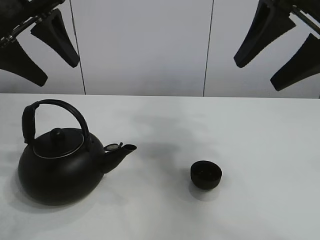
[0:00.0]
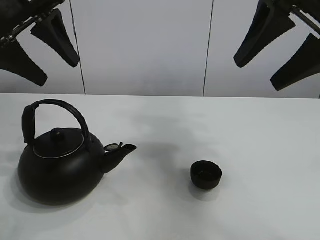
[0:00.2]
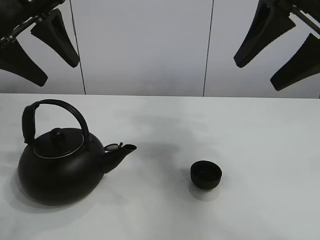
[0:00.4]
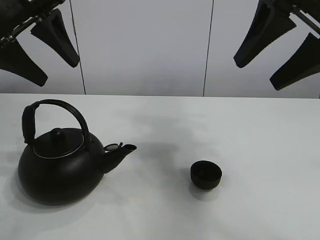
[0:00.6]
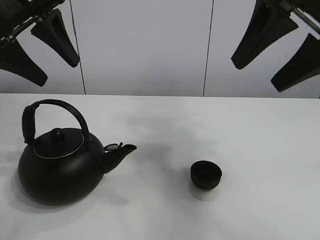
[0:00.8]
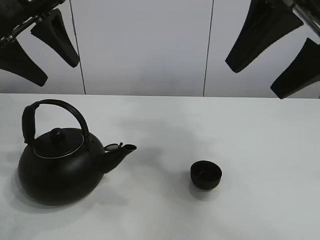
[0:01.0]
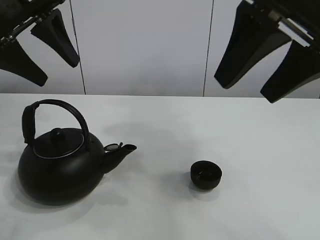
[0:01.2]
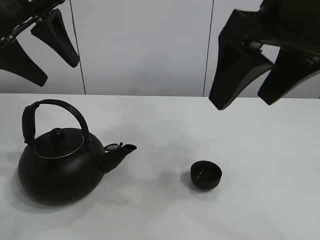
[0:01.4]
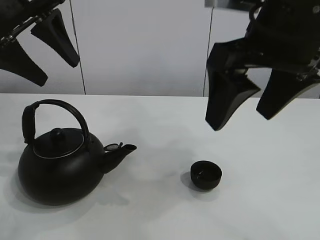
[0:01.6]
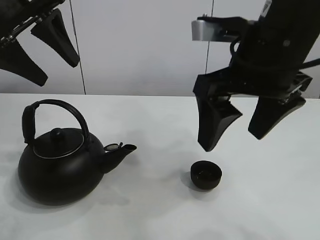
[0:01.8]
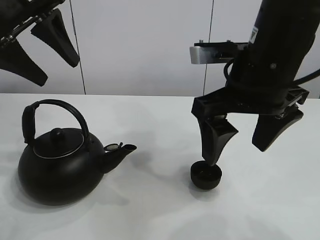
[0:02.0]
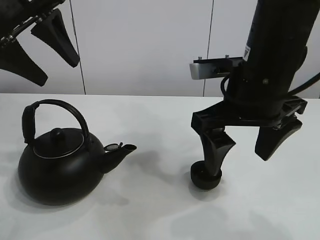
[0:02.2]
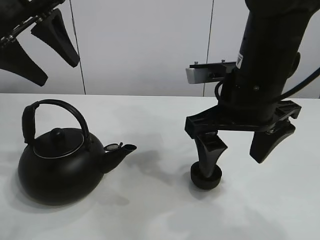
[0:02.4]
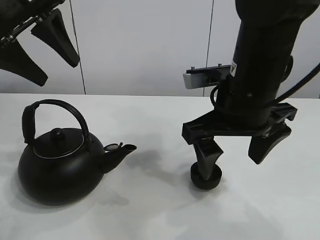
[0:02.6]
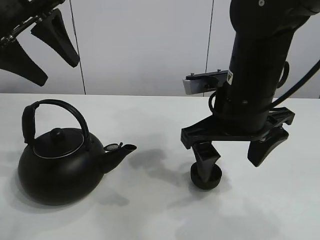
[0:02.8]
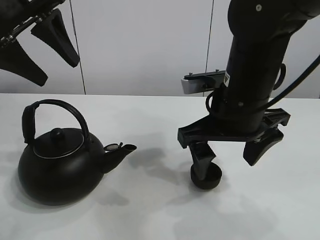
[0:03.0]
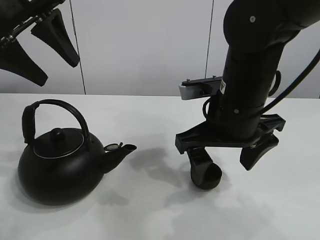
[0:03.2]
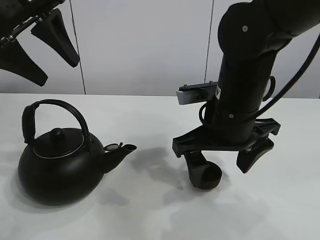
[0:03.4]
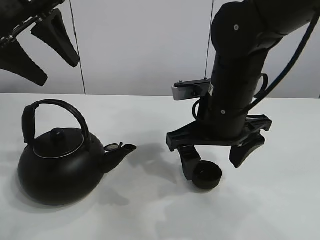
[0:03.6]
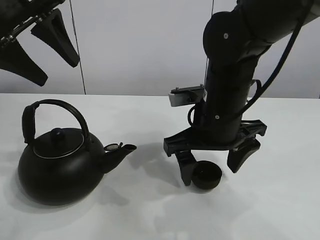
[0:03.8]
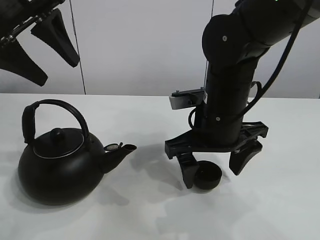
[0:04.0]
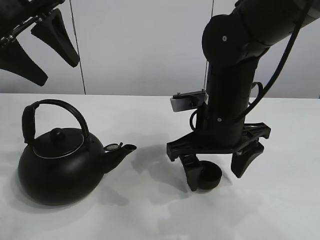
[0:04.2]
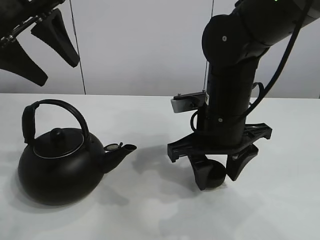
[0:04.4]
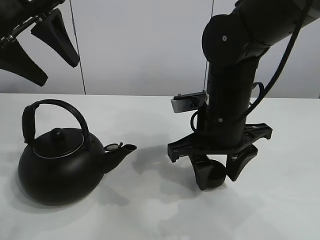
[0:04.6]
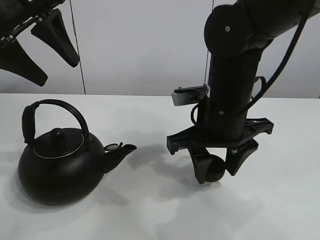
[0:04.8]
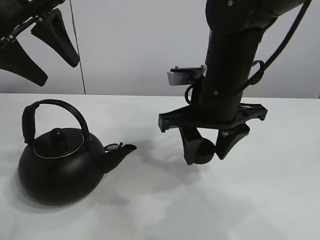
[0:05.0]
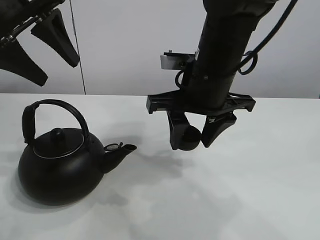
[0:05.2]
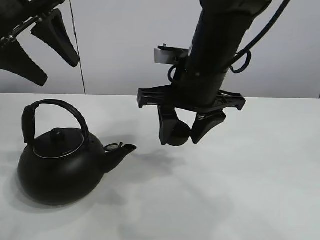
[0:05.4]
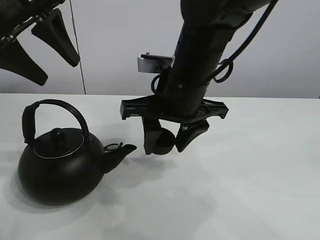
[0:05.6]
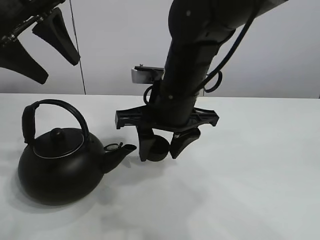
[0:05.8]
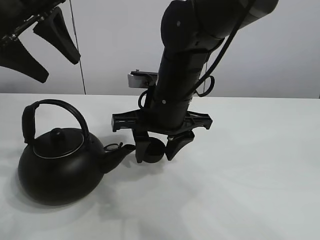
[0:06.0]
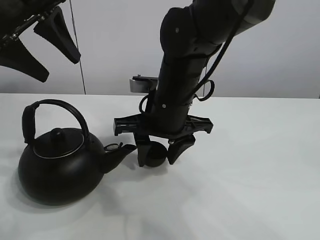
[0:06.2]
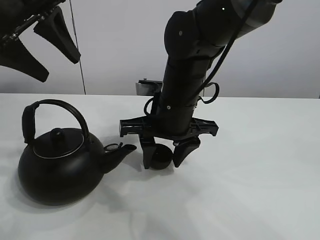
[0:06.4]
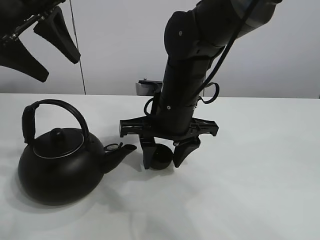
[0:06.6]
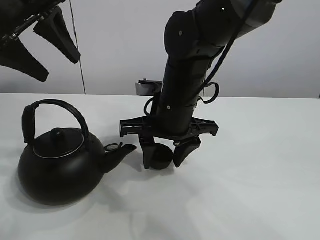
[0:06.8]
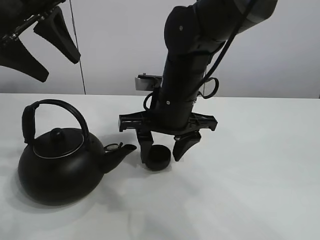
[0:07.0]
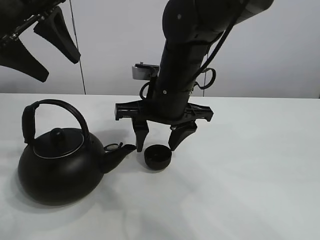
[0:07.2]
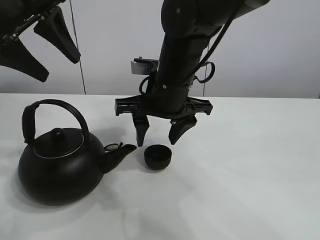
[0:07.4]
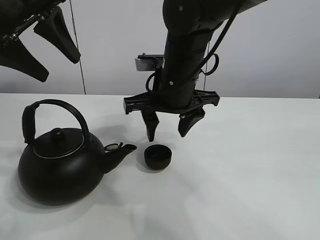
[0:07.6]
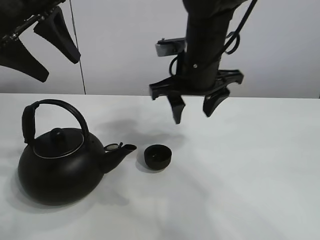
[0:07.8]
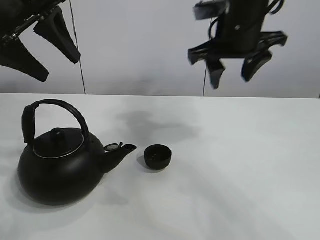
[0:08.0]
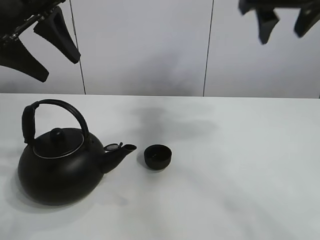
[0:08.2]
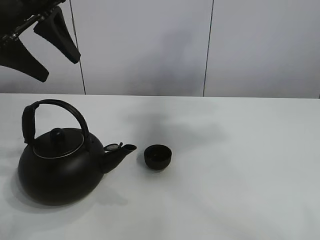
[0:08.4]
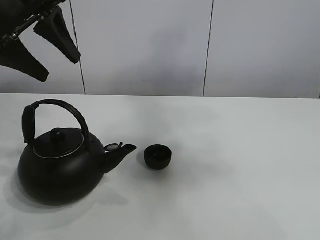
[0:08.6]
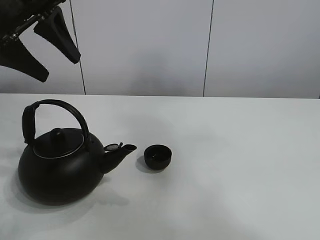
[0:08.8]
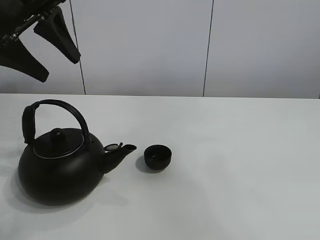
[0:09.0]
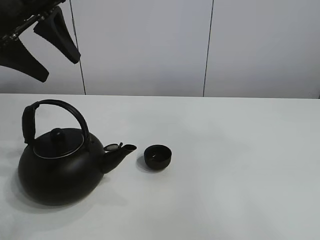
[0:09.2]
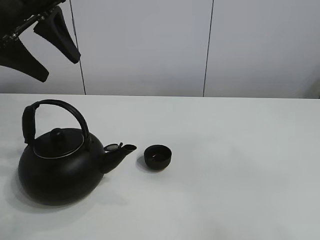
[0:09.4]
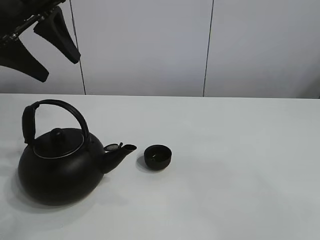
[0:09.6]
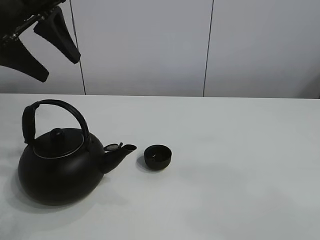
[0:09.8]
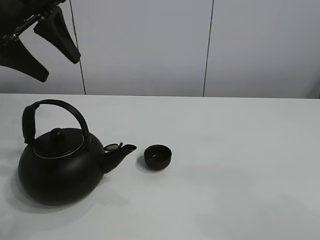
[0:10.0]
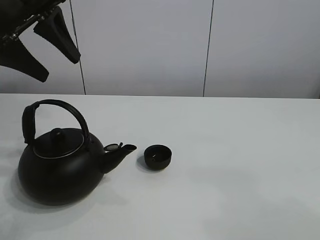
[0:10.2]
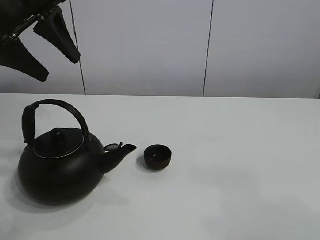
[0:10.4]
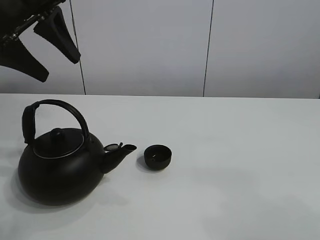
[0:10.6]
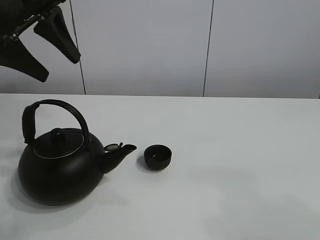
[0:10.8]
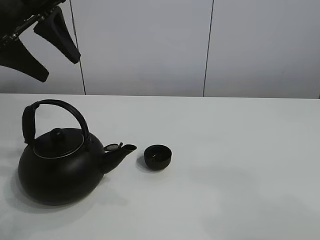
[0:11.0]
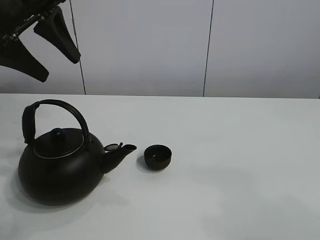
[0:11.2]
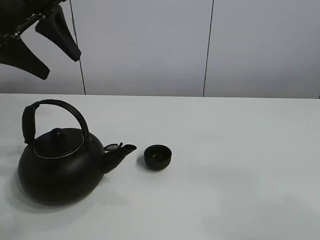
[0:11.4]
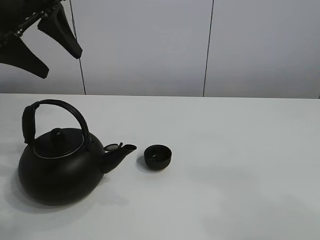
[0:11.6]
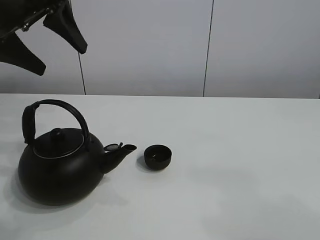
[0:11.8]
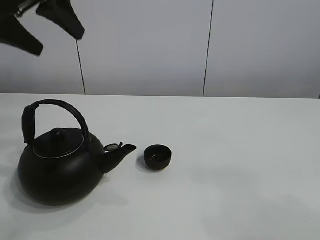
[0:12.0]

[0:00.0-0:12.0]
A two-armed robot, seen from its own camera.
Task of the whole recording: pour tea into the teacup.
Step, 0:00.0 to 0:04.6: Pick up the teacup with the right gripper.
Step, 0:05.0 to 0:07.0: Place the teacup in the center of view with the right gripper.
0:01.6 to 0:03.0: The right gripper goes some 10 cm downward.
0:03.0 to 0:04.4: The right gripper closes up.
0:04.4 to 0:06.0: The right gripper is displaced to the left by roughly 5 cm.
0:06.0 to 0:07.6: The grippers move only a little.
0:07.6 to 0:09.0: The right gripper heads upward, backward and to the right, covering roughly 60 cm.
0:09.0 to 0:10.4: The right gripper goes about 25 cm downward.
0:10.4 to 0:12.0: There are only small adjustments of the grippers.

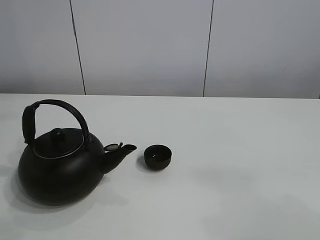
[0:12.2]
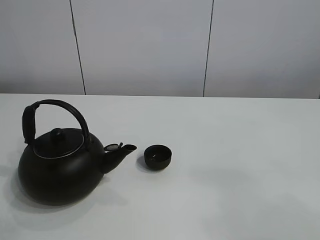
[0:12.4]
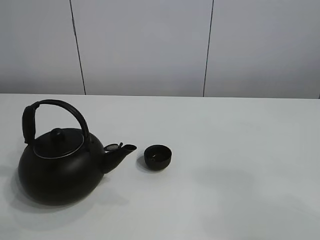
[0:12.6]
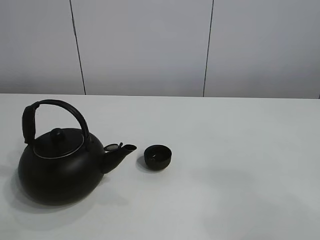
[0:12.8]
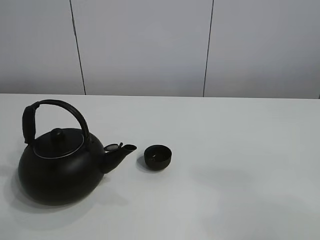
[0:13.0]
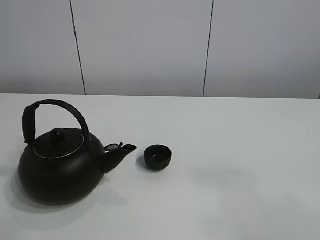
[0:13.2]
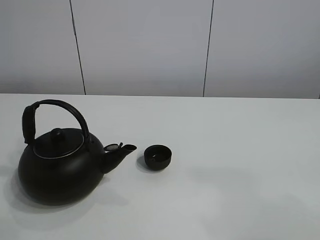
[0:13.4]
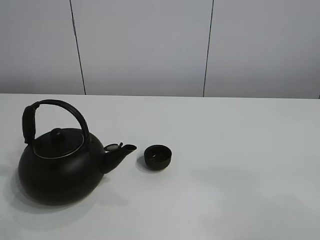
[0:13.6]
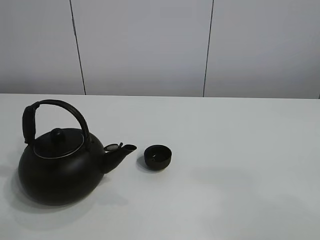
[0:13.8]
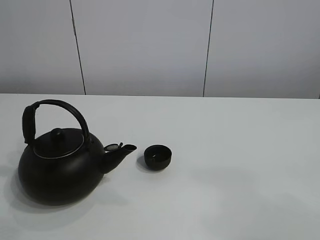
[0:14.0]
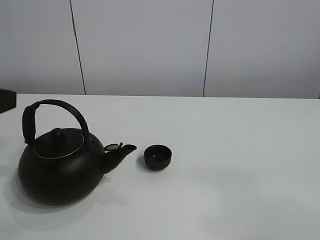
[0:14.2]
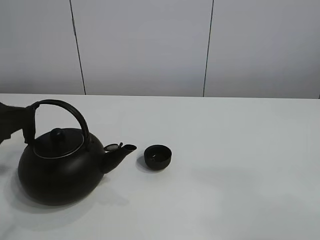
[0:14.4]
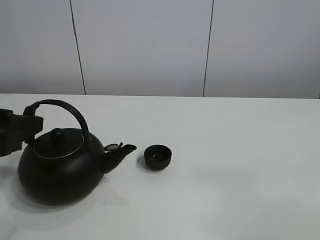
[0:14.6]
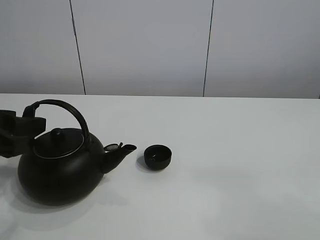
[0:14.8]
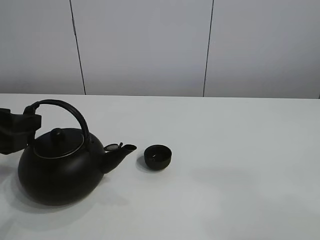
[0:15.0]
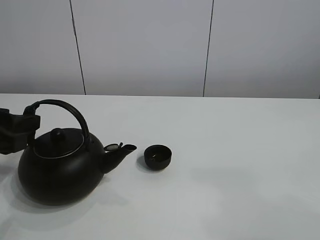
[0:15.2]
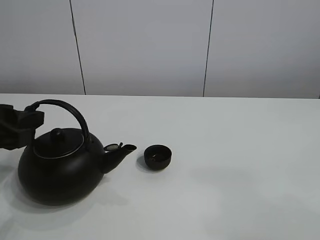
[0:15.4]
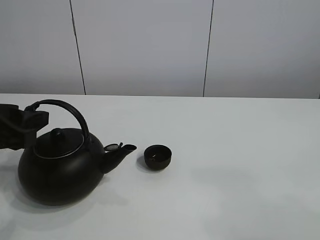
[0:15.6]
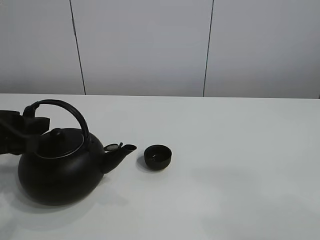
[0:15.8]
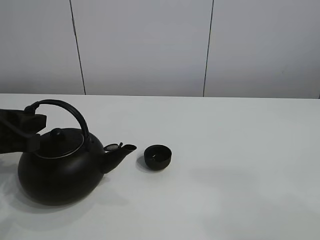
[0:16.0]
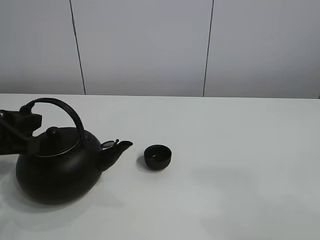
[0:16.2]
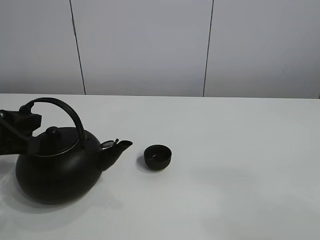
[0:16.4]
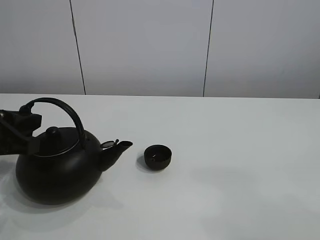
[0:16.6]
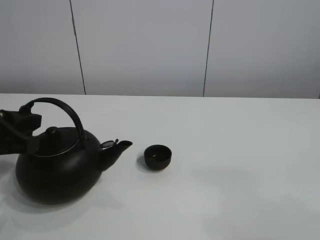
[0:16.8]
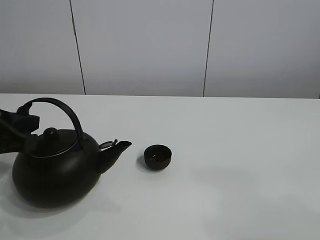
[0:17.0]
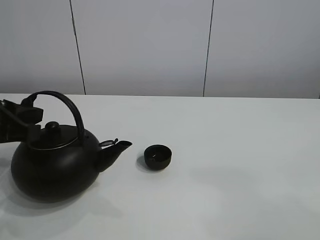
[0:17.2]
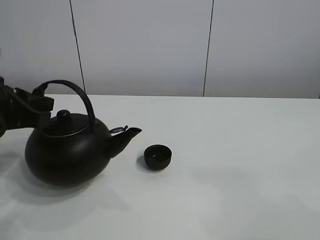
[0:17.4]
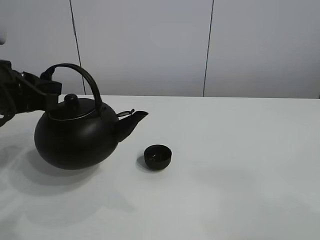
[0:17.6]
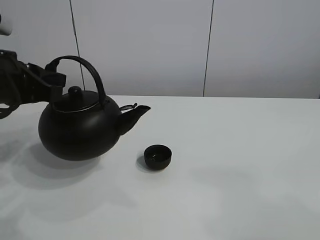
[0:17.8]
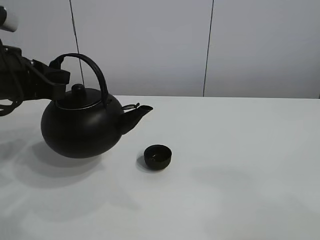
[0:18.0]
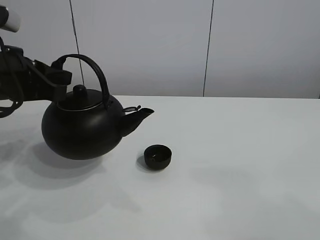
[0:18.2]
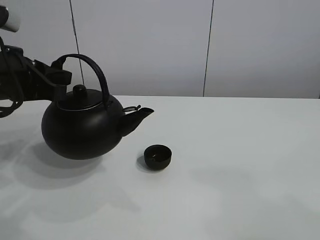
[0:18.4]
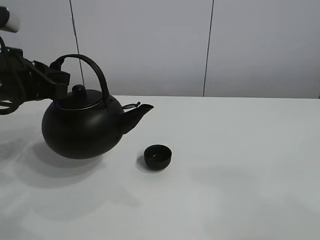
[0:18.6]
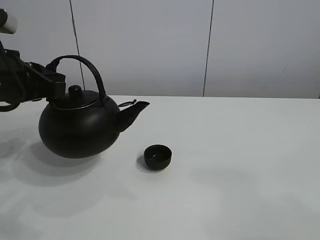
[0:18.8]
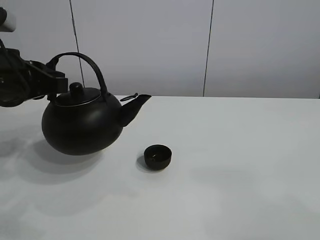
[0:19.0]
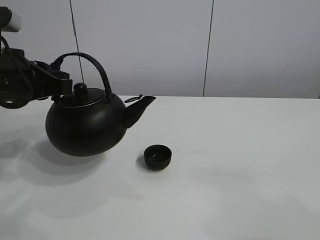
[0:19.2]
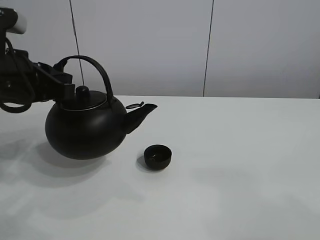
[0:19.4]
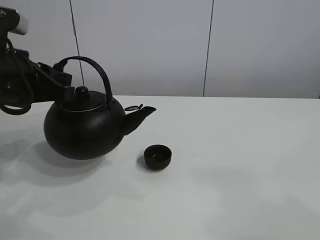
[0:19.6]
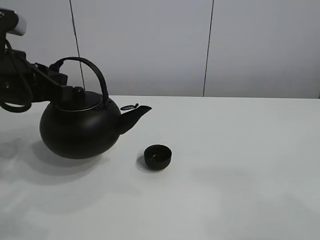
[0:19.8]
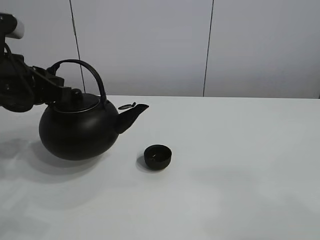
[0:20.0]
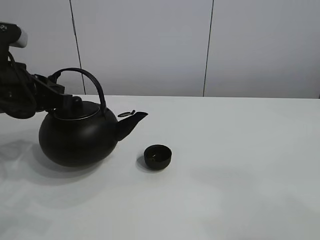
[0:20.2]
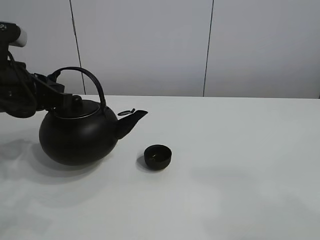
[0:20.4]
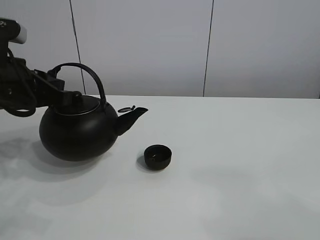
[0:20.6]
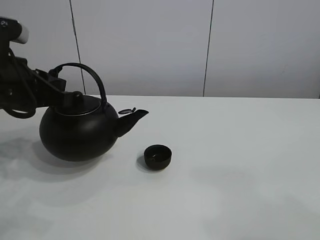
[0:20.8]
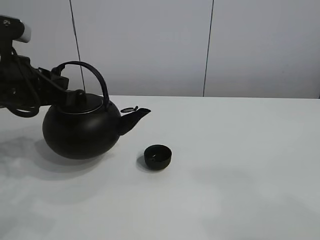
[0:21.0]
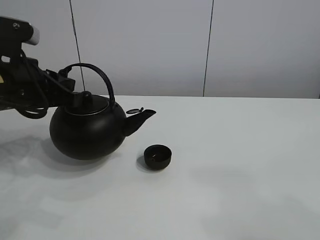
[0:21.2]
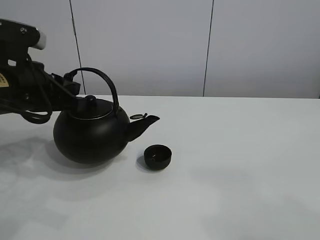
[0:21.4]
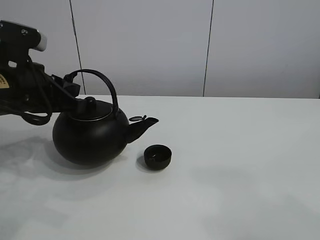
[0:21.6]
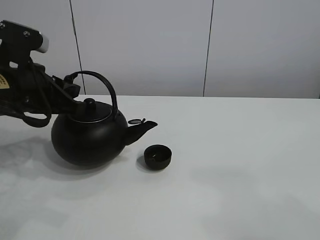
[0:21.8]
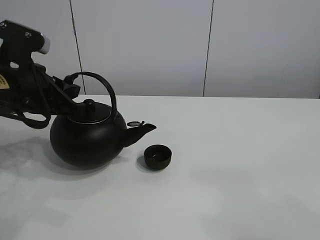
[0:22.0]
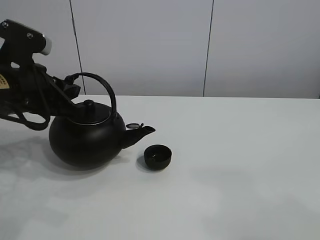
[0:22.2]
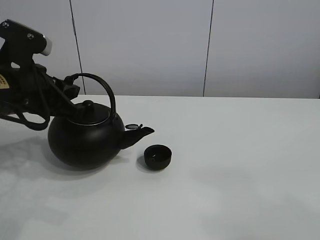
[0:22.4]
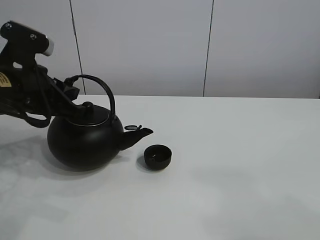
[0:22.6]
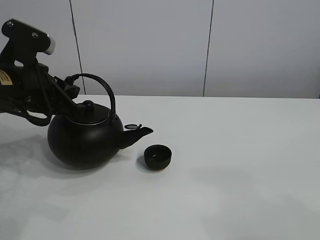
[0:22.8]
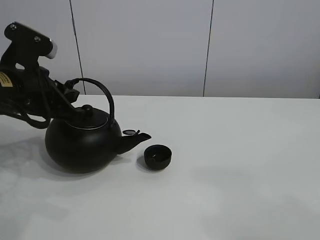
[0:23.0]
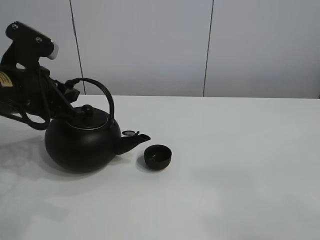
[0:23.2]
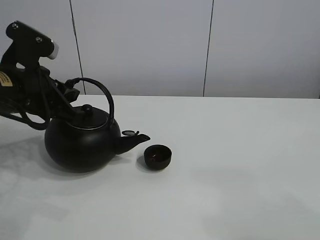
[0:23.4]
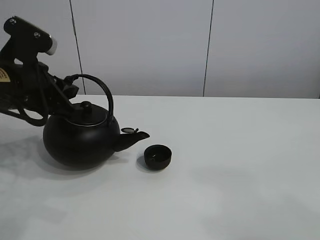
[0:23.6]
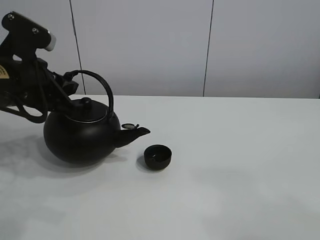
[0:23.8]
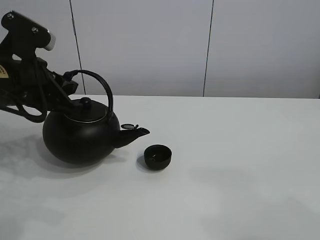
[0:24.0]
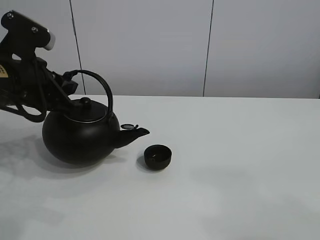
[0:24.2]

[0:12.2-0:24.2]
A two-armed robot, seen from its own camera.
Task of the whole recording: pour tea into the teacup.
Step, 0:12.2 to 0:17.0: Pick up the teapot with the left gripper.
0:13.8 to 0:15.2: The left gripper shifts roughly 15 cm downward and forward.
0:15.2 to 0:16.6: The left gripper closes up.
0:16.6 to 0:18.2: The left gripper moves upward and forward, some 10 cm.
0:18.2 to 0:24.2: There are only small adjustments of the grippers.
